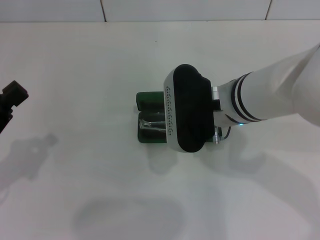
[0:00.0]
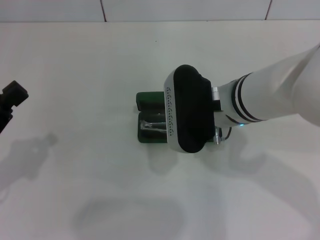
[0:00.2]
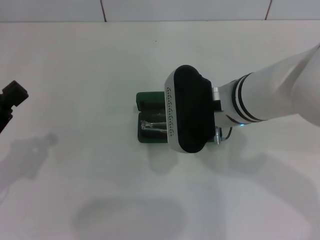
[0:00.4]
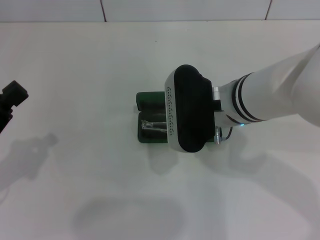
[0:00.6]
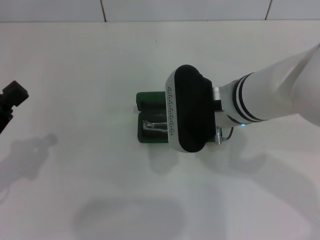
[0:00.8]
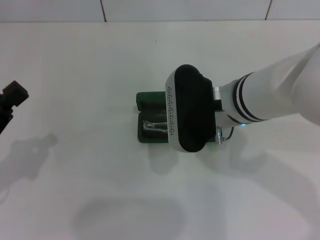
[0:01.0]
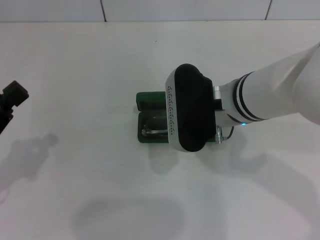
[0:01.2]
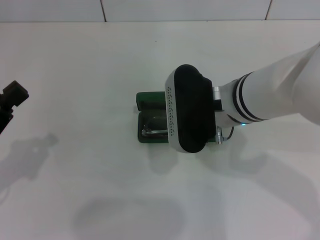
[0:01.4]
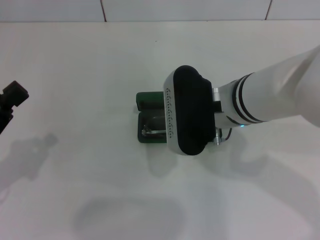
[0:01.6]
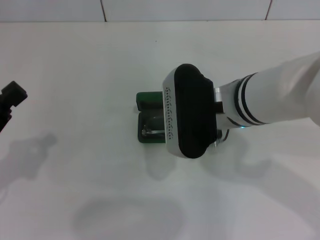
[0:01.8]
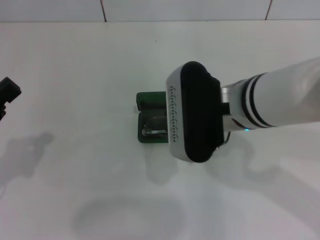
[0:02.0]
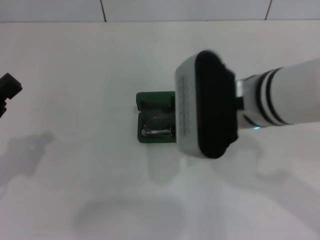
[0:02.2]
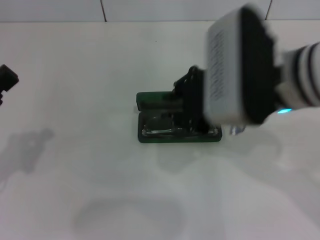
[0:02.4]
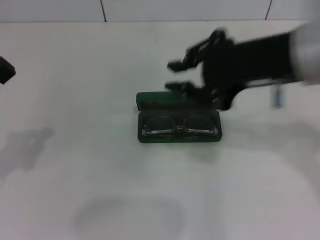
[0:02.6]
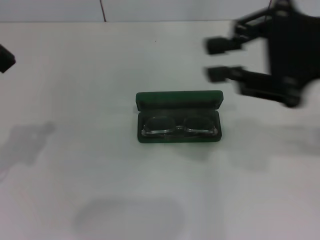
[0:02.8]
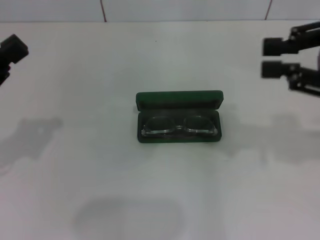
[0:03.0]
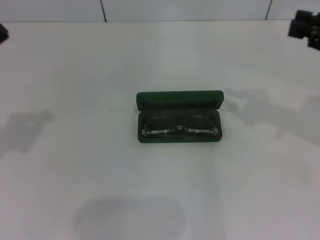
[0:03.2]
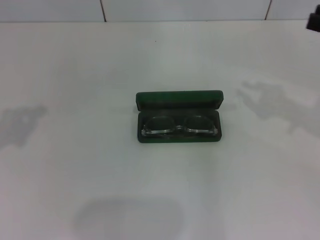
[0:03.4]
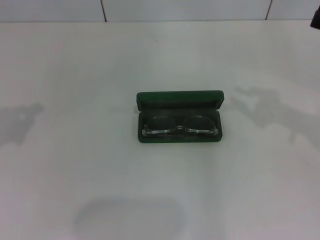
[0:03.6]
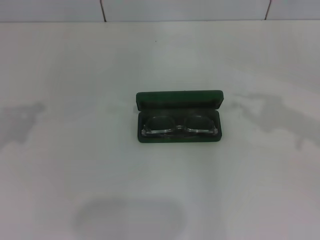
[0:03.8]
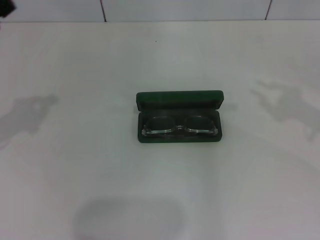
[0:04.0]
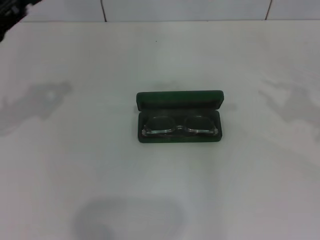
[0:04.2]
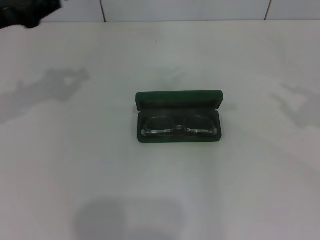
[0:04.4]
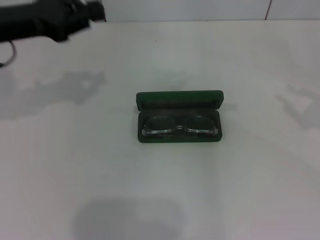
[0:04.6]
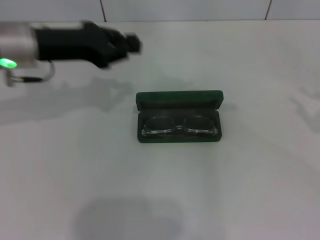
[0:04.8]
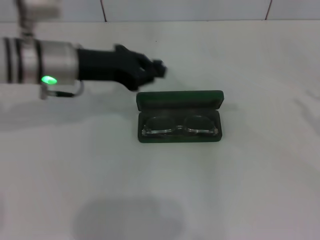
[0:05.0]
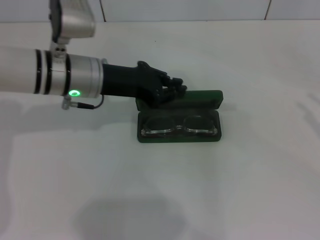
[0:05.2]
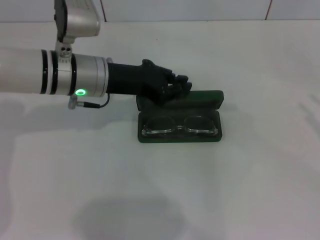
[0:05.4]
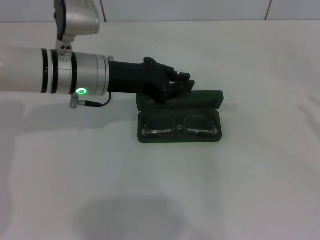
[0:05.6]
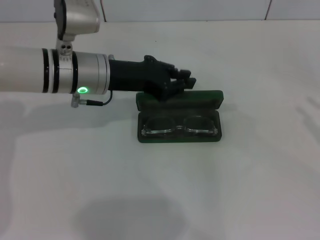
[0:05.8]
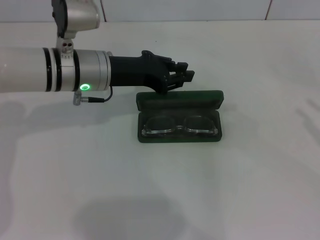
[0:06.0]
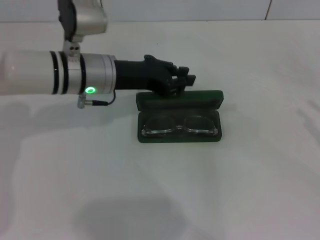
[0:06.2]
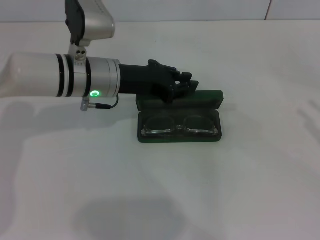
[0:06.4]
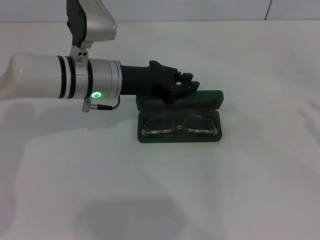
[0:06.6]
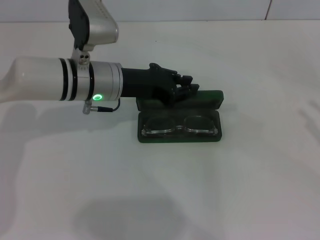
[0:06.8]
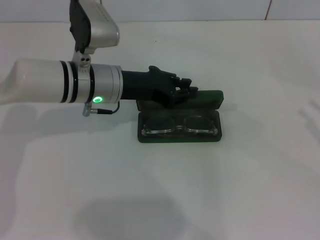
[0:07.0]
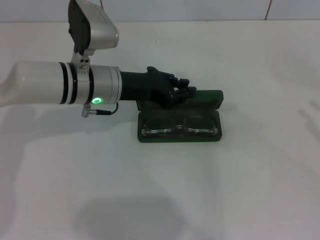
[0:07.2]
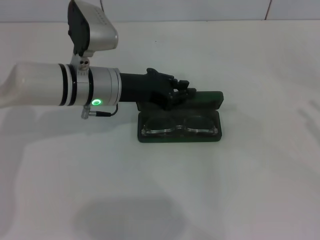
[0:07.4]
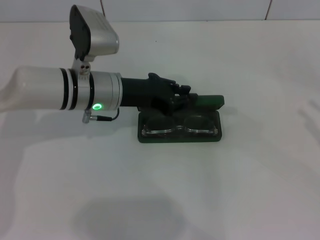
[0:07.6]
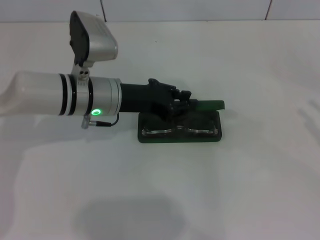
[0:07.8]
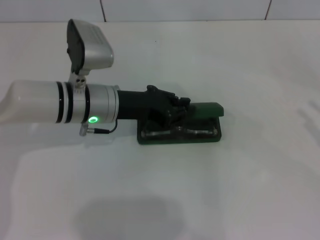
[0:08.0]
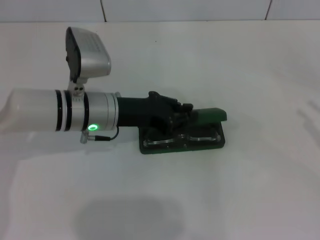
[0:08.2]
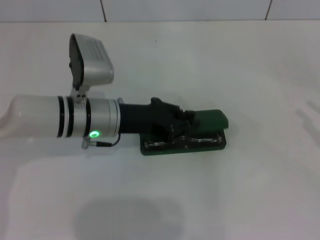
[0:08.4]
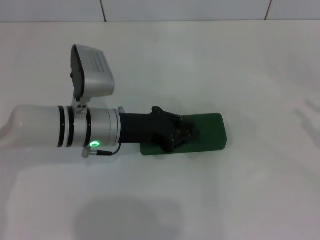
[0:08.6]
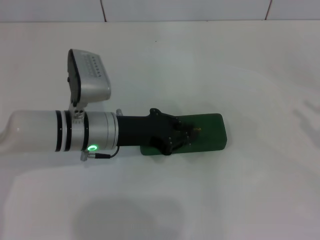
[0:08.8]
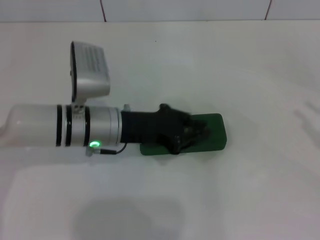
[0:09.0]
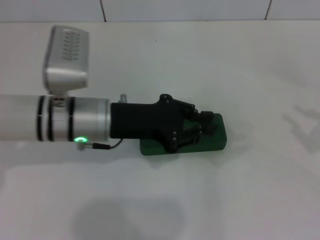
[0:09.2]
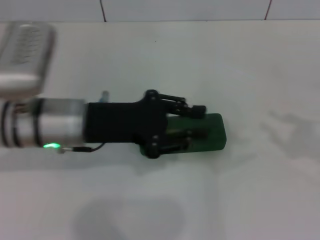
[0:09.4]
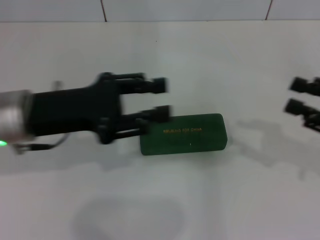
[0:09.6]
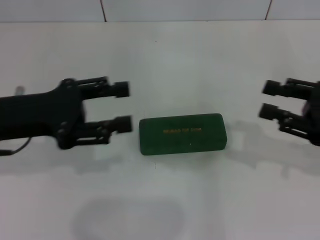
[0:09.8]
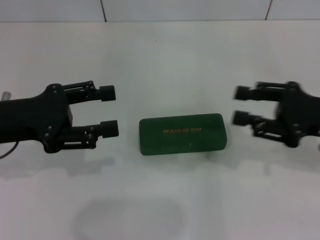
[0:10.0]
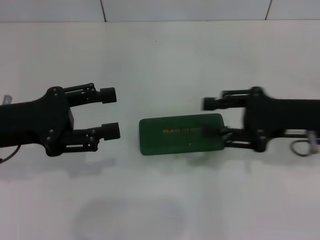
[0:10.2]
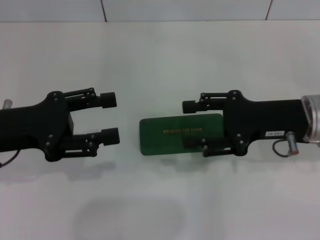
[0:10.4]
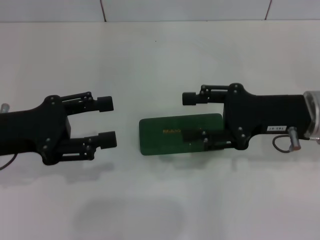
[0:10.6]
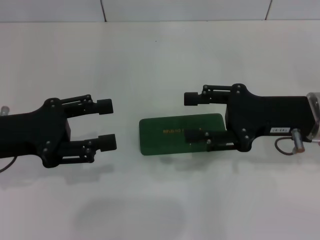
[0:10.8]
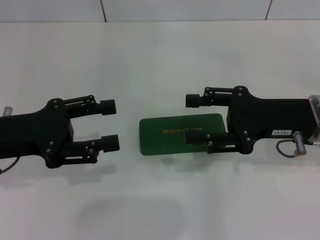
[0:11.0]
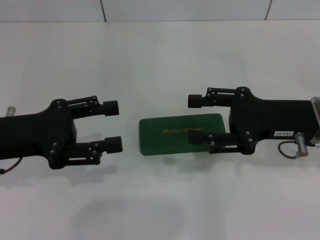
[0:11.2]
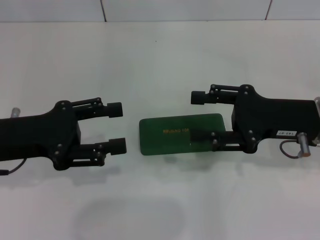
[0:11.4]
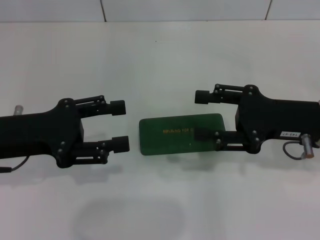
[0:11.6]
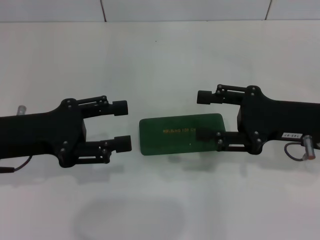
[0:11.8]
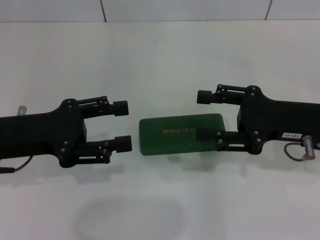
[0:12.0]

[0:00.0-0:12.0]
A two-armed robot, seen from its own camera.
Step, 1.8 to 8.6 s: Close the glasses case with your left hand.
0.0 to 1.6 s: The two grippers keep their place.
1.6 to 3.0 s: The left gripper moves roughly 5 cm. The right gripper moves to the right and upward, roughly 25 cm.
3.0 to 4.4 s: The right gripper goes about 15 cm to the right and downward; the left gripper shifts approximately 15 cm forward and upward.
4.4 to 6.0 s: The left gripper shifts roughly 15 cm to the right and downward; the right gripper travels downward by approximately 5 cm.
6.0 to 7.6 s: The grippers move only a little.
7.6 to 9.0 s: The left gripper ends up about 5 cm from where it was.
9.0 to 10.4 s: The right gripper is displaced to the left and forward by approximately 20 cm. Meanwhile the left gripper heads to the left and upward, covering some 15 cm, and opens its fingers.
10.4 to 12.0 s: The grippers make only small movements.

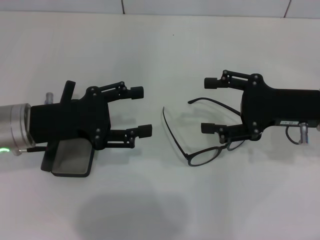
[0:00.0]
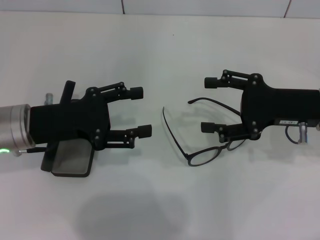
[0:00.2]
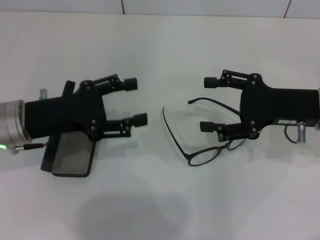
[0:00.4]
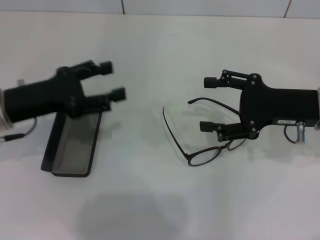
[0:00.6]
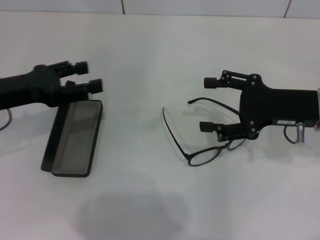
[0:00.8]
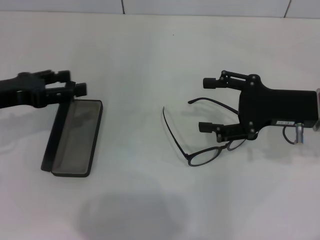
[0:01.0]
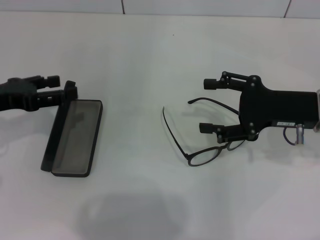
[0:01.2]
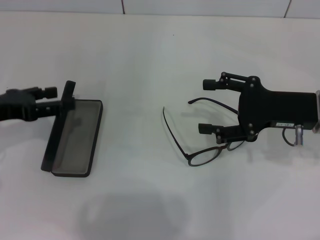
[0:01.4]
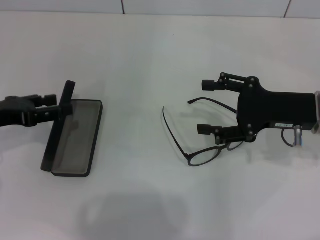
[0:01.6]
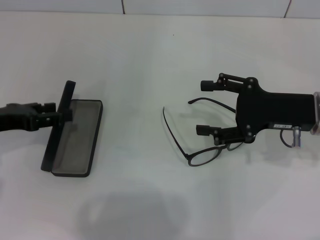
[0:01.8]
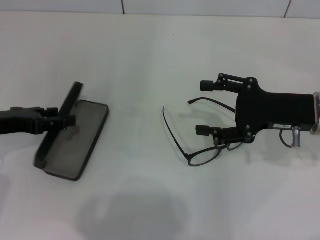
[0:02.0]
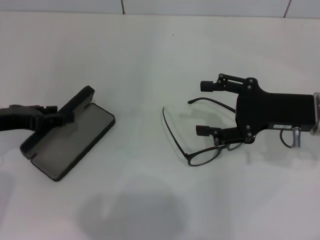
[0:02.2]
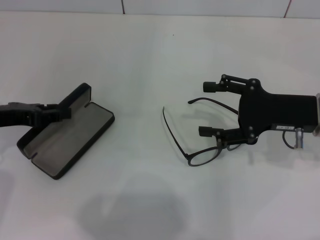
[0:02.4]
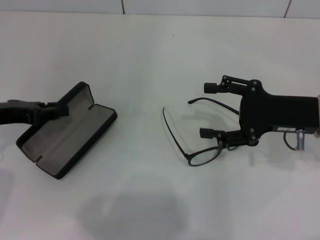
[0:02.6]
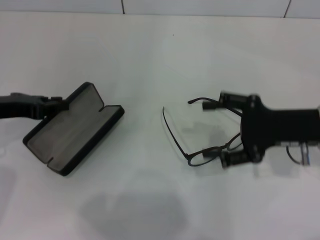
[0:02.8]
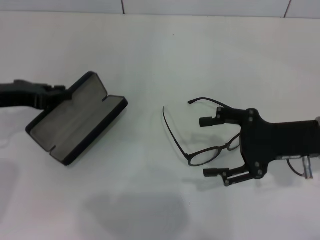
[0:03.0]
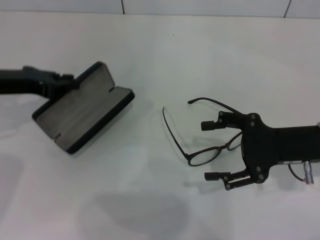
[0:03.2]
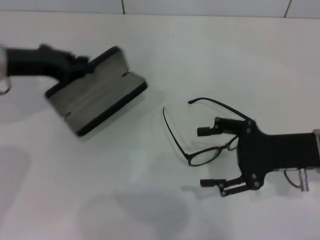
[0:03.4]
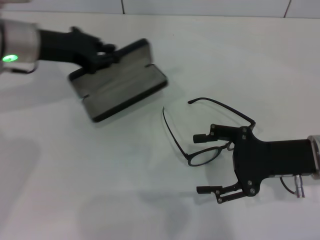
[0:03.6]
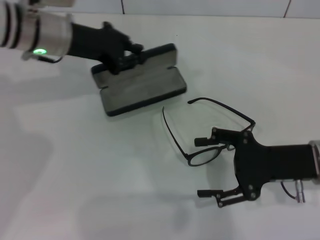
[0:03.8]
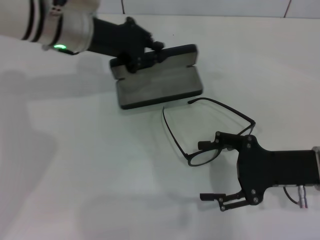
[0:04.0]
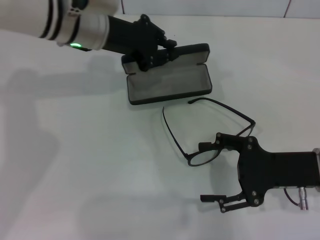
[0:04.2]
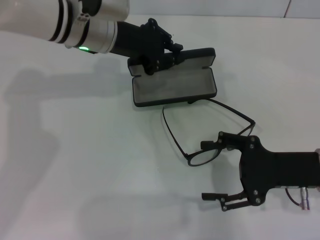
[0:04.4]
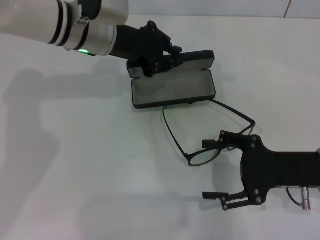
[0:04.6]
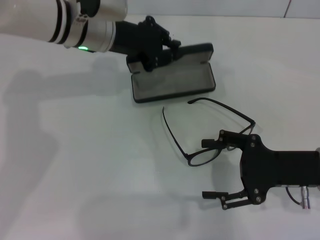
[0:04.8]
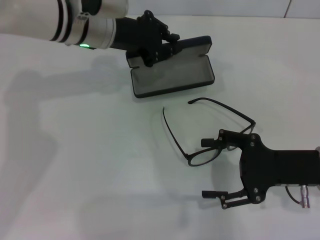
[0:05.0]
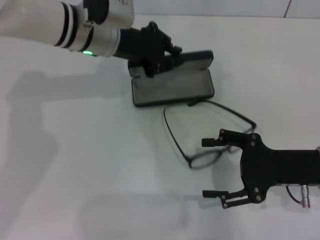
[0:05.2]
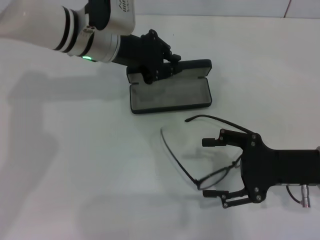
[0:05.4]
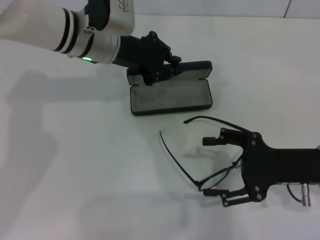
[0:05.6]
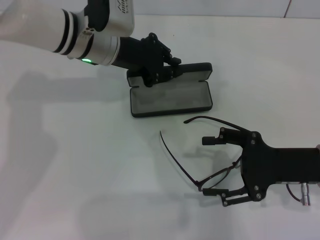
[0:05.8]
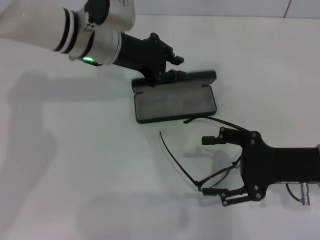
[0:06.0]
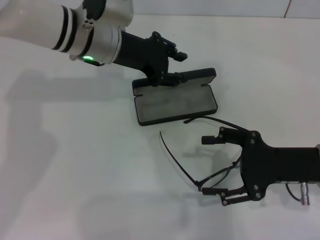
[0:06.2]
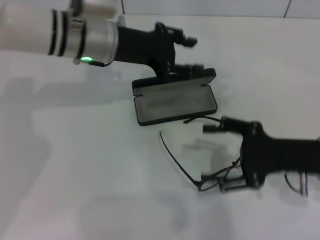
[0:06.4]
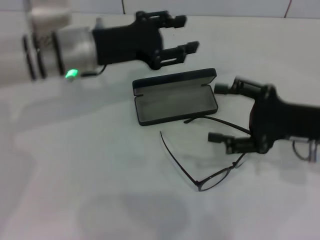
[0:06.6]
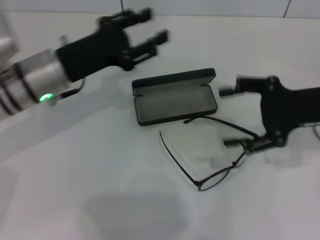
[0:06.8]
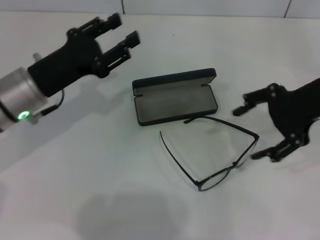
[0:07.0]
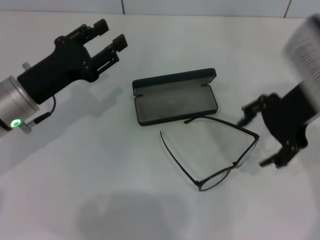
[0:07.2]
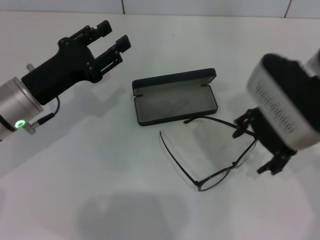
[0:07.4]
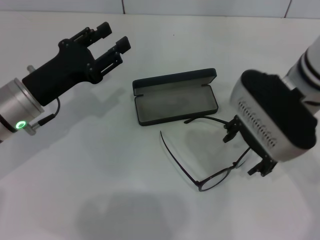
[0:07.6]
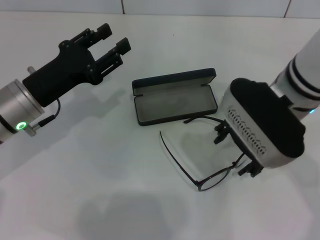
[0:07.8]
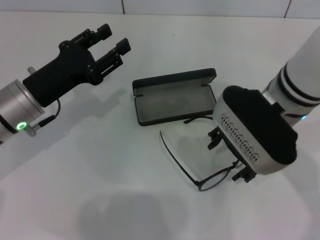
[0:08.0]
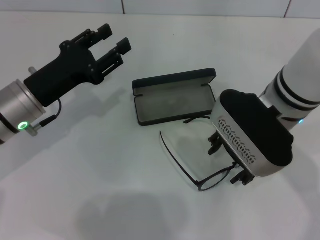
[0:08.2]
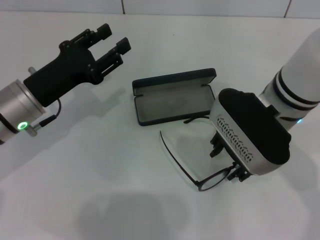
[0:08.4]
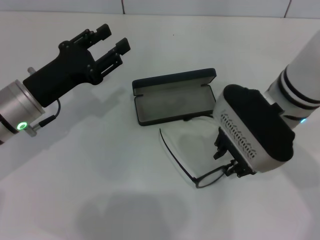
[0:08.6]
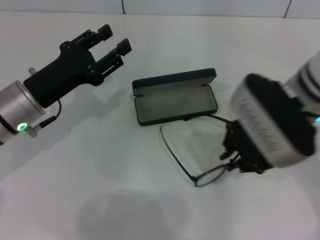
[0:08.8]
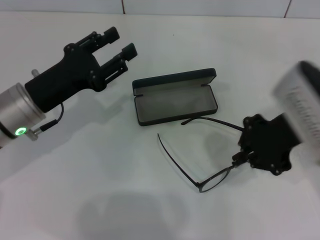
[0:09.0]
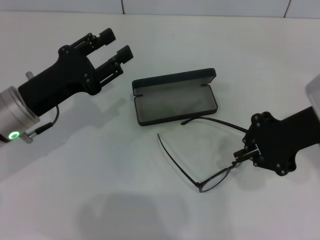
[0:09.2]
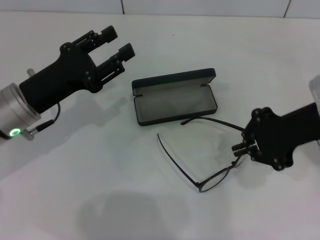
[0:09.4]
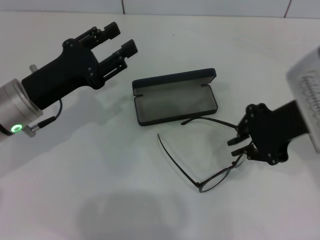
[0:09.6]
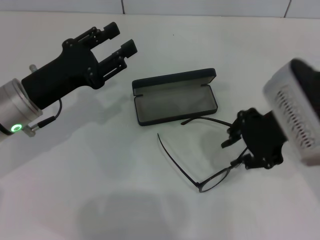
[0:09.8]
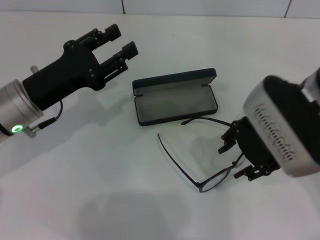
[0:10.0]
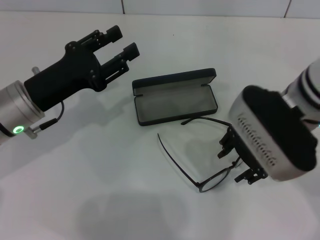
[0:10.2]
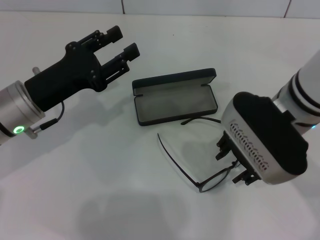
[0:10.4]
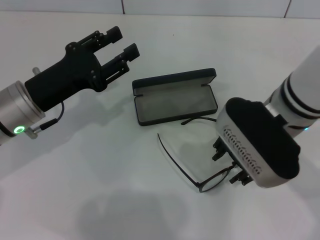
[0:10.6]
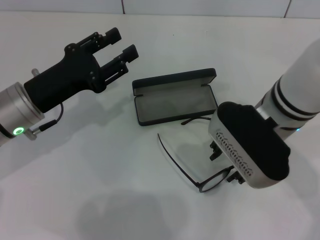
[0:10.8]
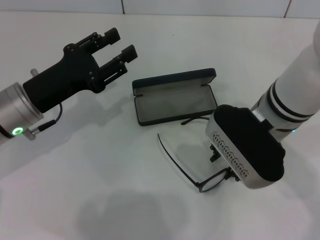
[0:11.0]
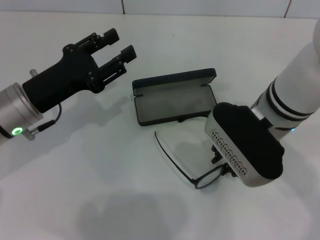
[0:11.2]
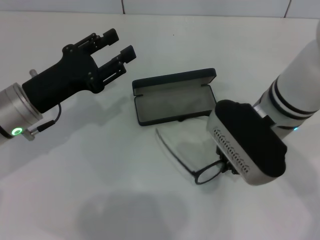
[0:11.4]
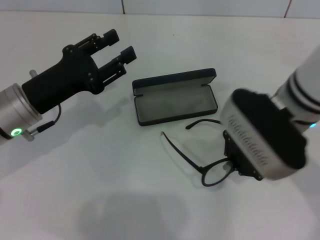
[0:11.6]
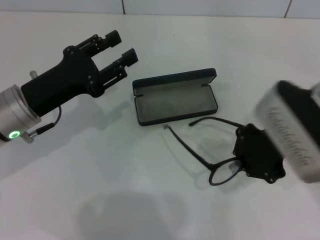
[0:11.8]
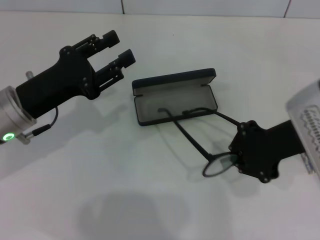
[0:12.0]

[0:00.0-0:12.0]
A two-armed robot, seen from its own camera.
Step, 0.0 to 2.6 s: Grab the glasses case with your left hand.
Step, 2.8 to 6.0 s: Place the glasses case in the center of the table with your left hand.
Step, 6.2 to 11.2 s: Grab the eyeglass frame with your right hand.
0.0 to 1.6 s: The left gripper heads to the left, covering some 10 cm.
1.6 to 3.0 s: The left gripper closes.
3.0 to 4.4 s: The left gripper is displaced to the right and forward by roughly 20 cm.
4.4 to 6.0 s: The grippers move only a little.
6.0 to 7.6 s: The left gripper travels backward, to the left and downward by about 15 cm, and opens its fingers; the right gripper travels upward, to the left and forward by roughly 15 cm.
7.6 to 9.0 s: The right gripper closes.
9.0 to 10.4 s: The right gripper ends up approximately 5 cm from where it was, and opens up.
10.4 to 12.0 s: The right gripper travels to the right by some 5 cm, and closes.
